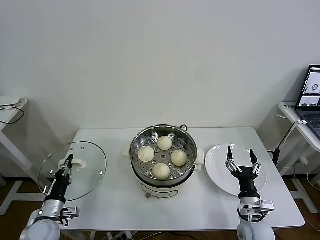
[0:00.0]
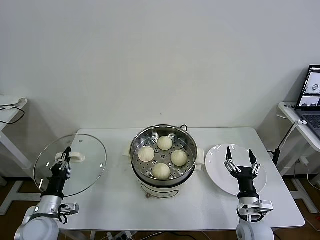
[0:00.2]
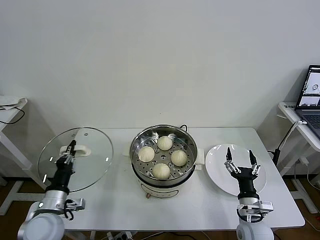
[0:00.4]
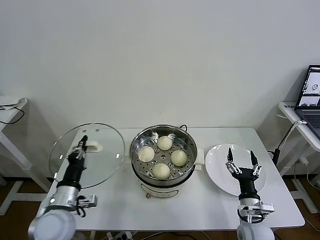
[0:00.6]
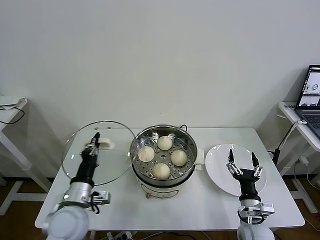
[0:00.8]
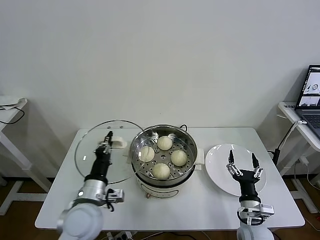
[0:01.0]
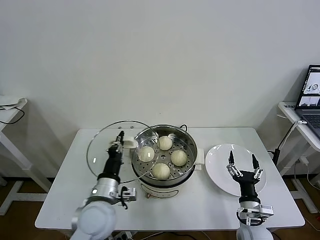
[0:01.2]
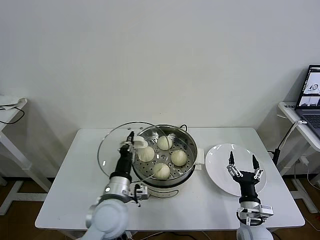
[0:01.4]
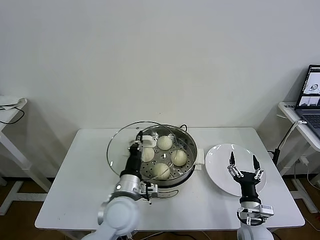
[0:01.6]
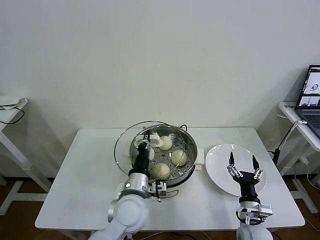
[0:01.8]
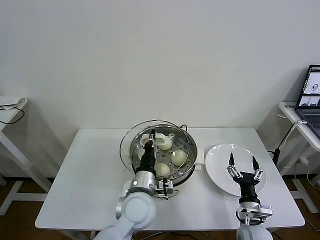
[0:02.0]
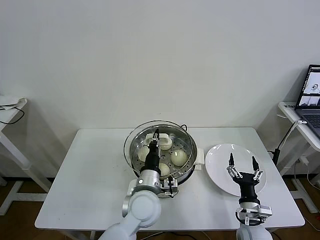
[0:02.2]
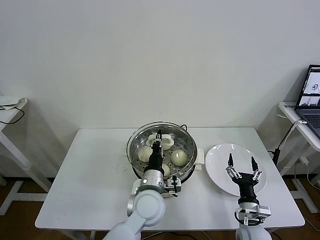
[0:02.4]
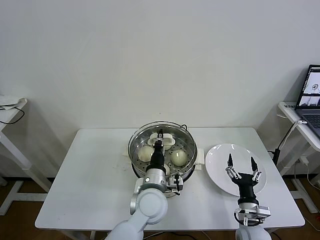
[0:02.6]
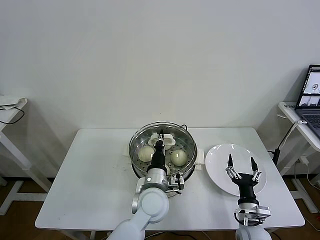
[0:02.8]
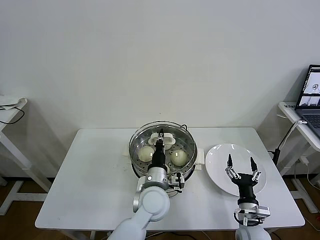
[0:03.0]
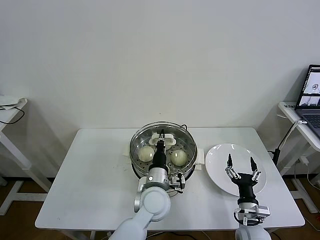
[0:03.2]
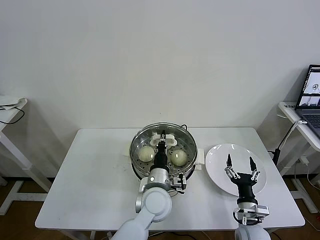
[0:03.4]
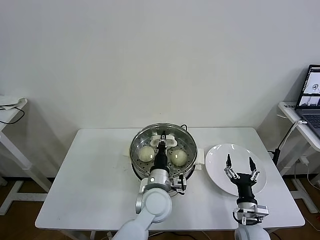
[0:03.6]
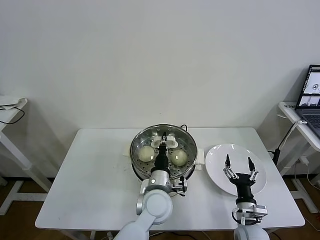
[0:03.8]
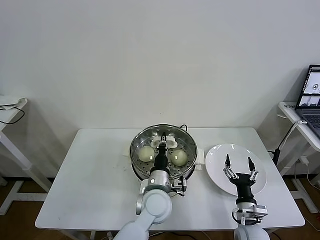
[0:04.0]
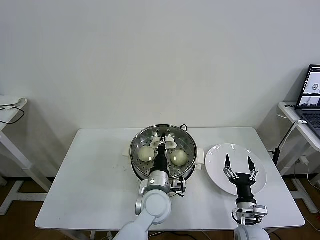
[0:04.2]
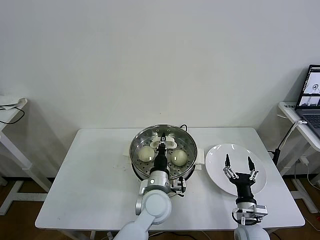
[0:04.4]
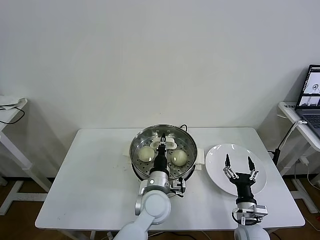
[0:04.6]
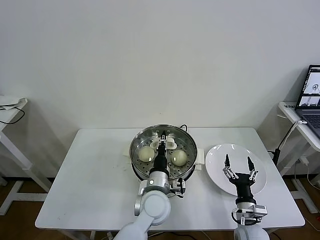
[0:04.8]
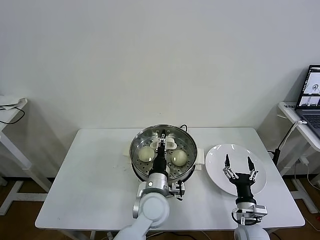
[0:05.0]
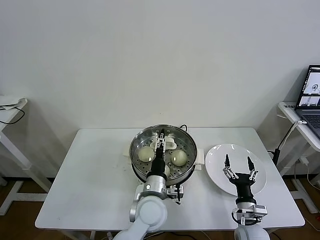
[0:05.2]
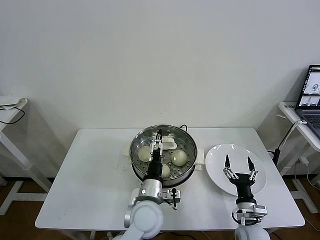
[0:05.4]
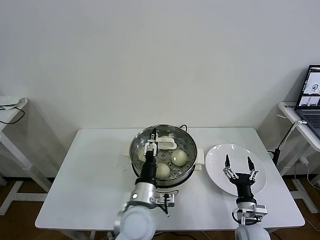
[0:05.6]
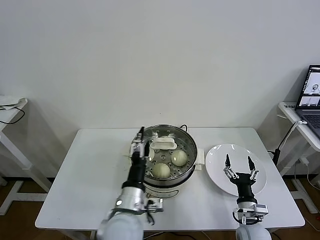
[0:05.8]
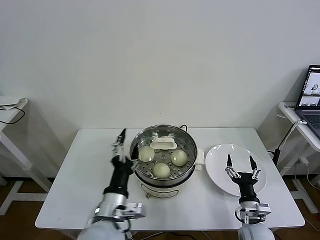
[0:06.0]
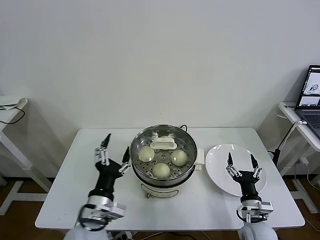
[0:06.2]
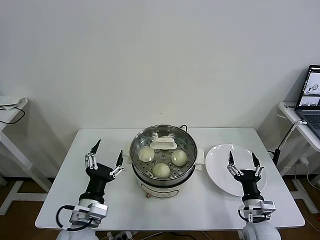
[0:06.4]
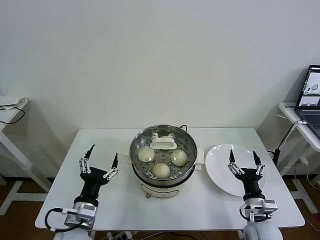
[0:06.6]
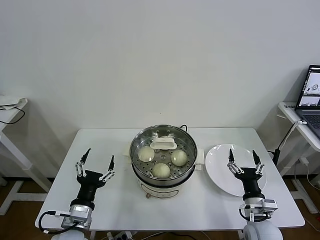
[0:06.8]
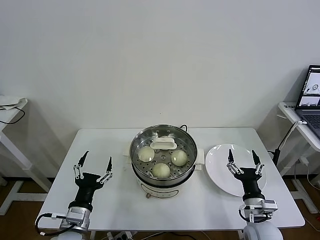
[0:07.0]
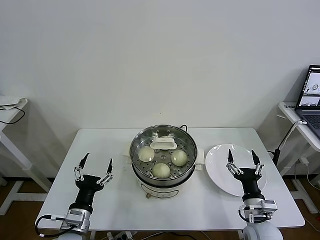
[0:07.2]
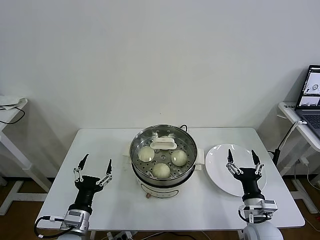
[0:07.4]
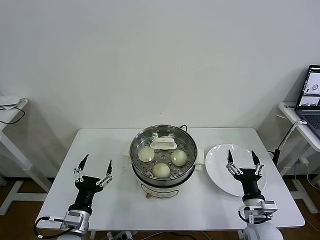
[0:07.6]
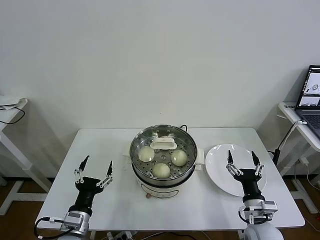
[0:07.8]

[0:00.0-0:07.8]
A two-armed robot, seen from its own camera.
Task of the whole recording: take steamed baozi put them in steamer then cover it.
Step, 0:00.0 to 0:05.4: Place the pot lid on the steamer with left gripper.
0:00.0 to 0:01.6: The left gripper heads to the right and upward, covering roughly 30 cm.
0:01.6 to 0:03.2: The left gripper shifts some 10 cm to the right.
0:03.2 to 0:04.6: The grippers move only a little.
0:04.6 to 0:06.2: The left gripper goes roughly 20 cm to the left, backward and upward, and opens up.
0:06.2 to 0:07.8: The left gripper goes some 10 cm to the left and downward.

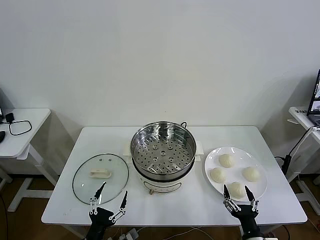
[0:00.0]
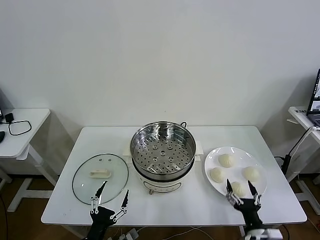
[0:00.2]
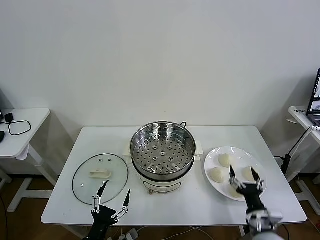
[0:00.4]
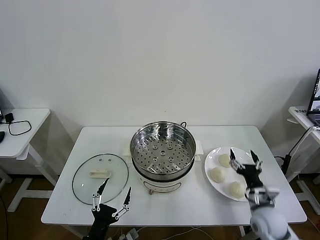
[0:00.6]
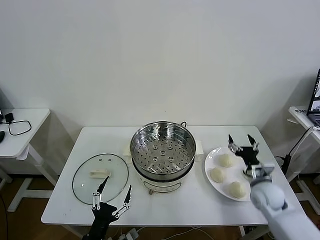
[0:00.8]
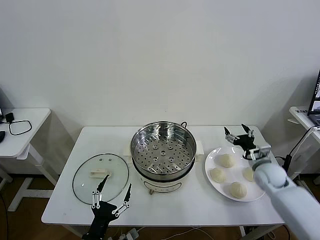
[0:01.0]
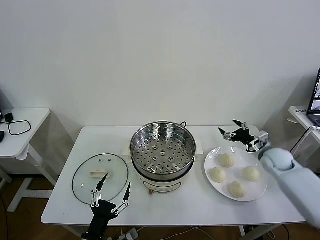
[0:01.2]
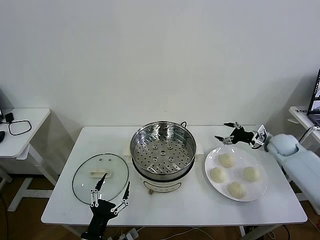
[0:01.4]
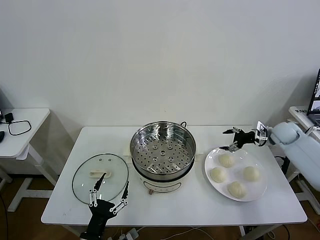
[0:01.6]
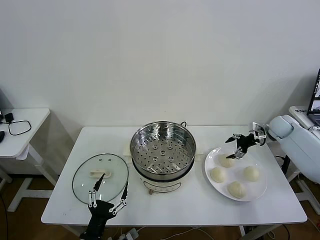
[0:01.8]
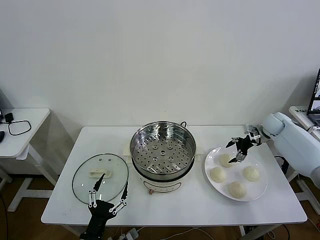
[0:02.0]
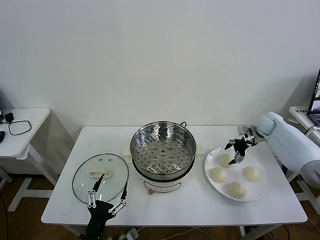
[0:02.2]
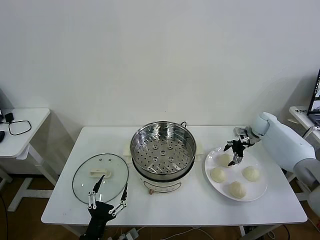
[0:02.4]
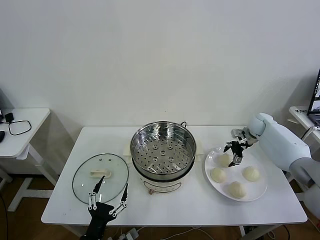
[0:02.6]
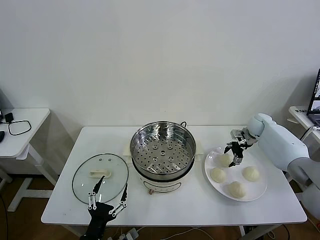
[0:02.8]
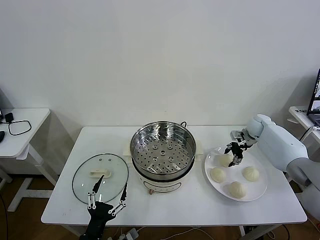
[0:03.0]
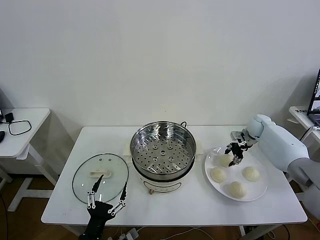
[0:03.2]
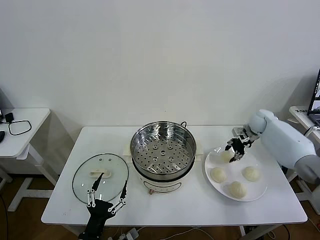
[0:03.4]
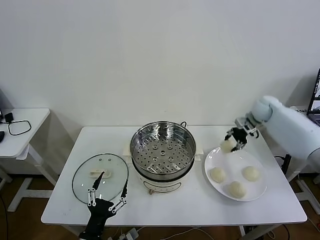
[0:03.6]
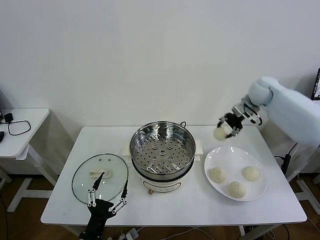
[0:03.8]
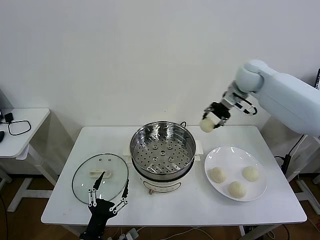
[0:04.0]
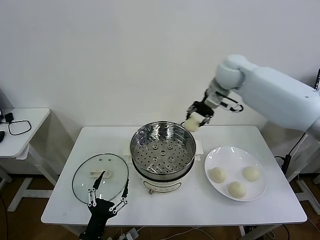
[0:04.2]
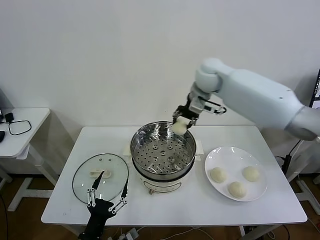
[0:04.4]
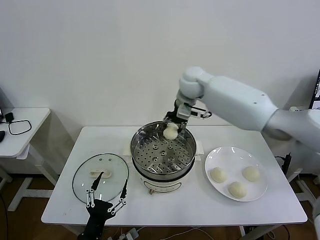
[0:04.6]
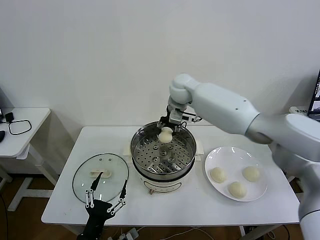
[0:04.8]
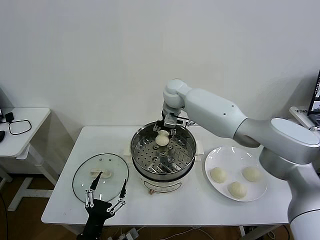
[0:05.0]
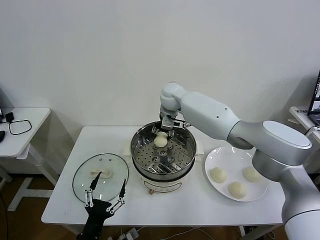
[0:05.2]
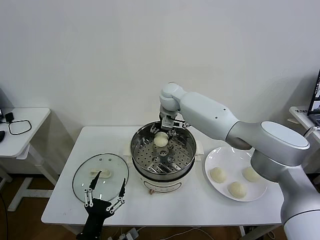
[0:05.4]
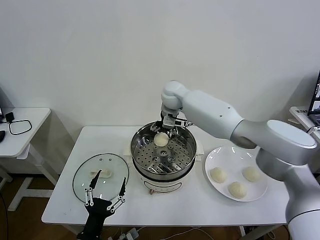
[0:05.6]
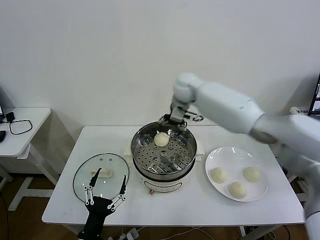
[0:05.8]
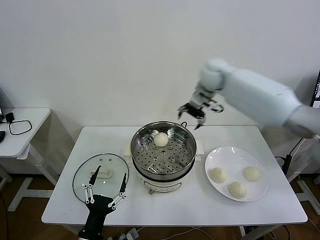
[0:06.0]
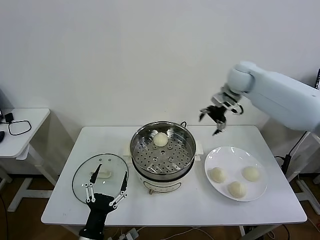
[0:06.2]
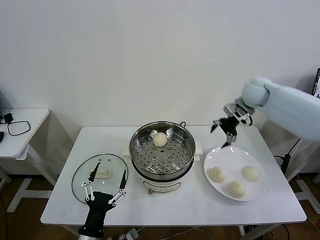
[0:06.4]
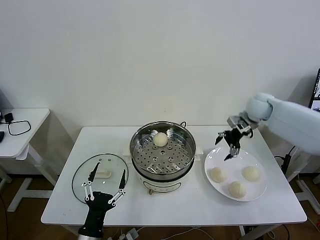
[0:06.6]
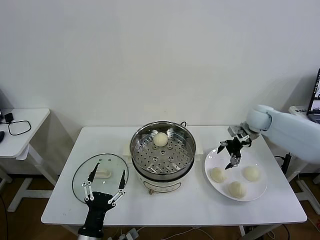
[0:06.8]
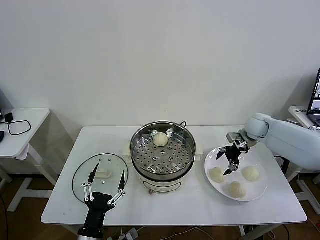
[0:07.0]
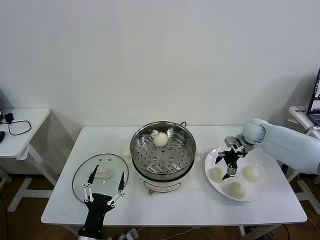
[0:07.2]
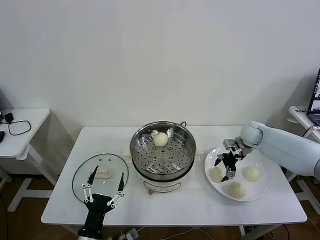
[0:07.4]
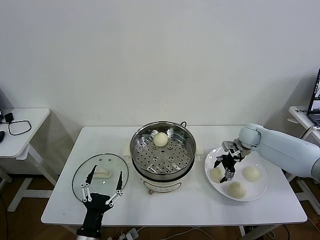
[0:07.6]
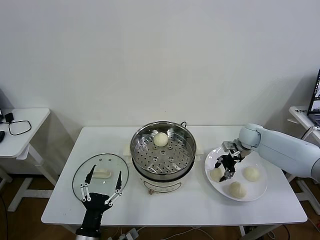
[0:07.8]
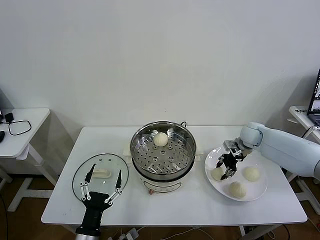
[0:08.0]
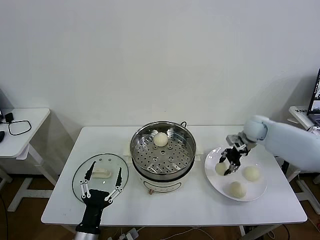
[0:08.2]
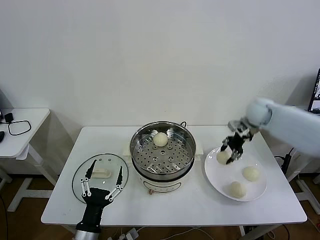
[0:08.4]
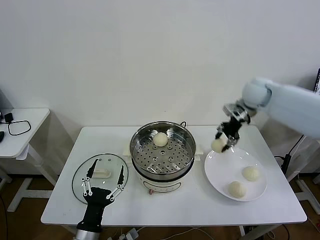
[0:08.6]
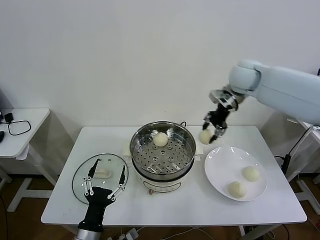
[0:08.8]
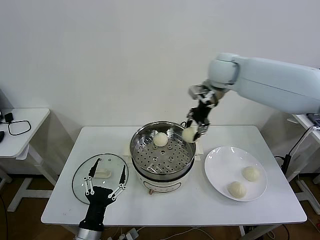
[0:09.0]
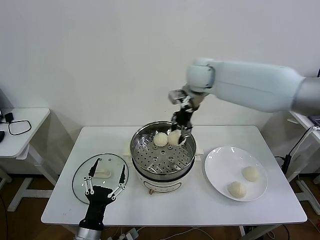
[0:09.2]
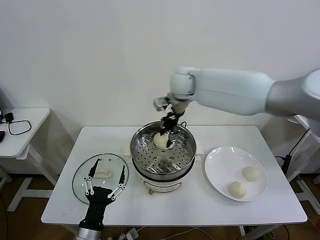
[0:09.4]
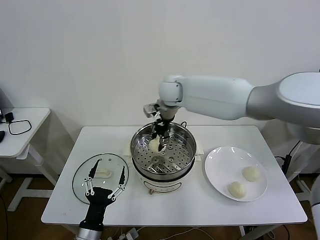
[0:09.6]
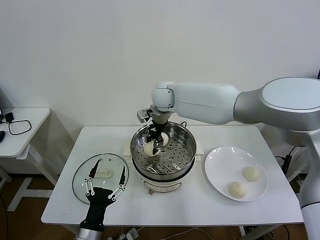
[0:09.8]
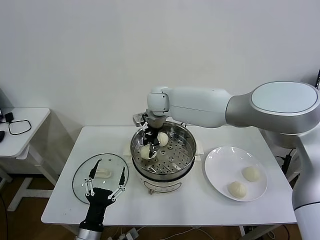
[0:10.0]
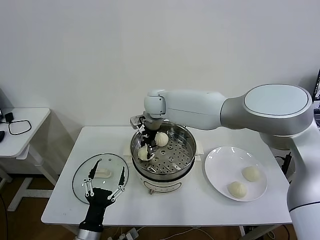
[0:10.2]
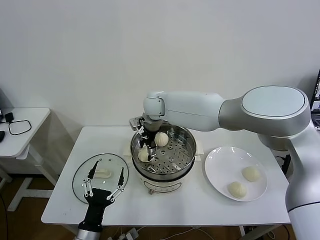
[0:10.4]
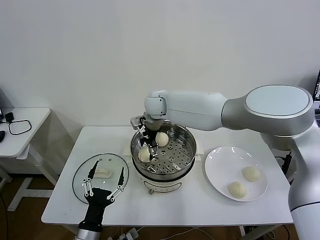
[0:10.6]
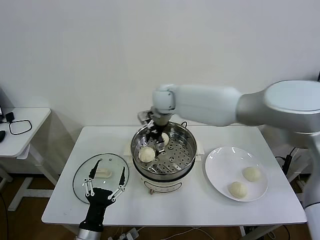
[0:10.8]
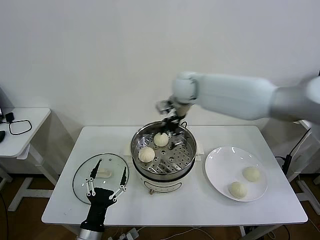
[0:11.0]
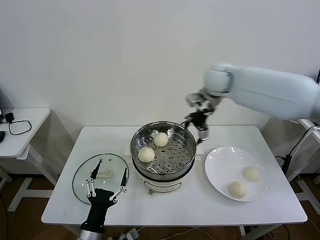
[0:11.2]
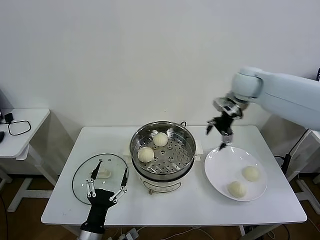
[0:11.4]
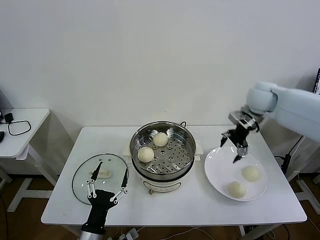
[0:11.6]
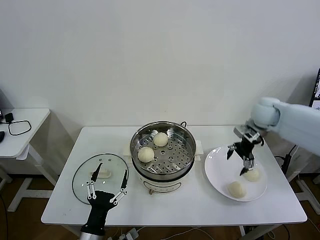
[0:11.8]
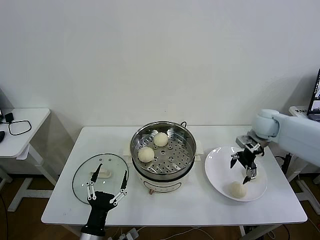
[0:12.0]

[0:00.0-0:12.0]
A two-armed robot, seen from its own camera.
Task of the whole recording: take steamed baozi put them in steamer then cover it.
Step, 0:00.0 to 0:03.0: Grasp the baozi in the plate with right gripper.
Step, 0:03.4 to 0:05.4: Place the baozi on the steamer with right gripper.
Step, 0:05.8 to 0:07.8: Grasp the baozi in the plate with right gripper.
Step, 0:08.0 to 0:10.4: Place the baozi on the steamer with right gripper.
0:01.6 to 0:03.0: The right gripper goes roughly 10 cm to the left and forward, and closes up.
0:03.0 to 0:04.4: The right gripper goes roughly 35 cm to the left and upward.
0:04.4 to 0:06.0: The right gripper moves to the right, some 10 cm, and opens.
0:06.0 to 0:07.6: The right gripper shifts roughly 25 cm downward and to the right.
0:07.6 to 0:09.0: The right gripper is displaced upward and to the left by roughly 35 cm, and closes.
0:09.0 to 0:10.4: The right gripper shifts approximately 20 cm to the left and downward, and opens.
0:10.4 to 0:12.0: The right gripper travels to the right by approximately 40 cm.

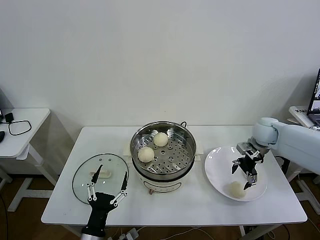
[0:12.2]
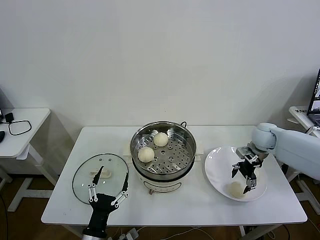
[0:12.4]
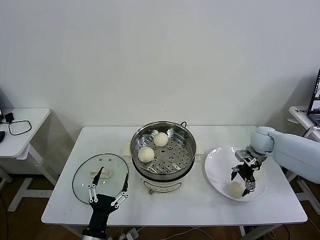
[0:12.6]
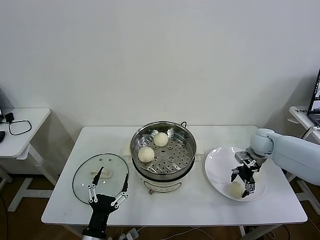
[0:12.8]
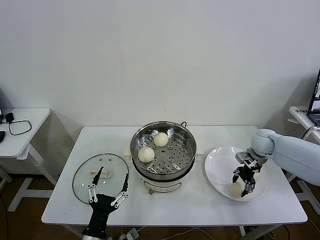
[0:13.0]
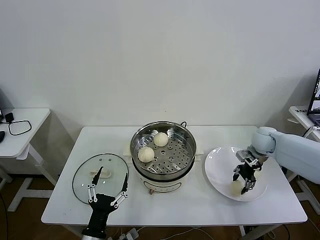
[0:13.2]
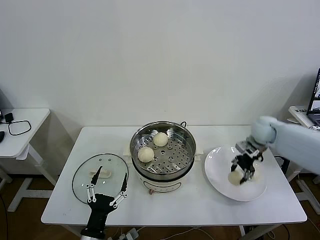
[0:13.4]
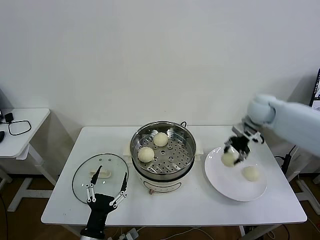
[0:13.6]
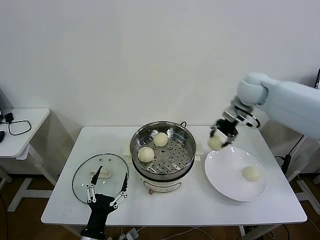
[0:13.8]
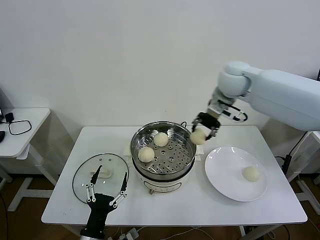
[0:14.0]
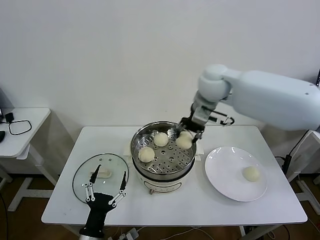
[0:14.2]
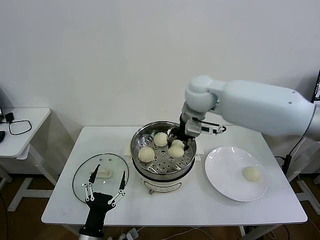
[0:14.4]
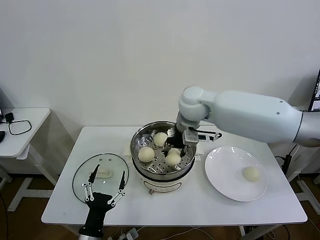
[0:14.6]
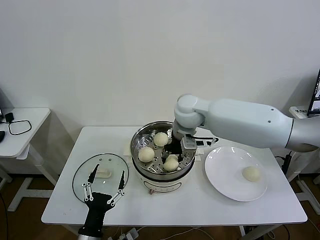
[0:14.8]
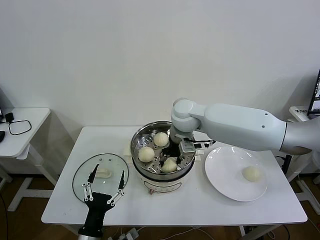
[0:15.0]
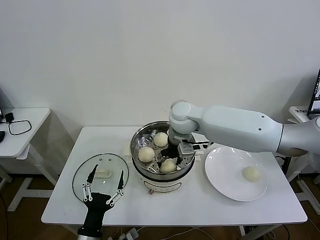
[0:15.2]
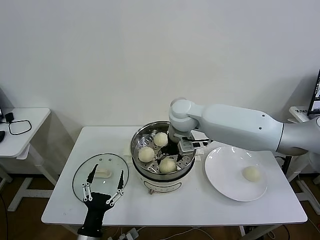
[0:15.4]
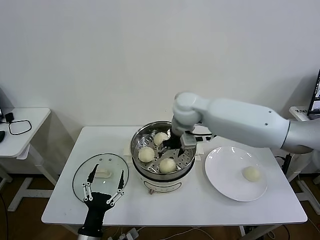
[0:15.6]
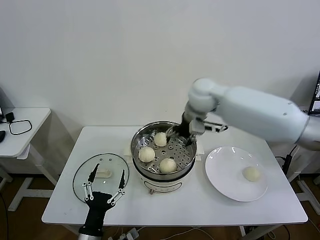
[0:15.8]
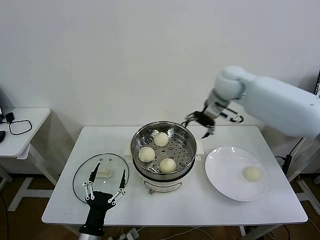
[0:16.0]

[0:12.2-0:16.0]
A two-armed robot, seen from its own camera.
Task of the whole recording: take steamed baozi put them in steamer then cover it.
Step, 0:13.2 to 0:15.4: Place the baozi on the steamer with right gripper.
0:12.2 to 0:13.4: The right gripper closes its fingers.
0:13.4 to 0:14.8: The right gripper moves to the left, approximately 30 cm.
0:14.8 to 0:16.0: The right gripper shifts roughly 15 cm to the right, forward and upward, and opens.
